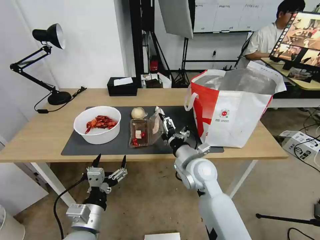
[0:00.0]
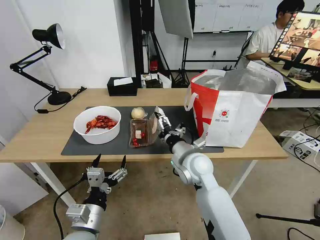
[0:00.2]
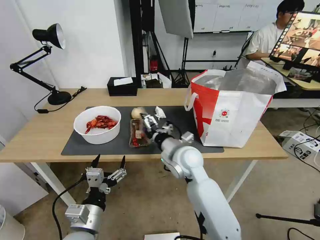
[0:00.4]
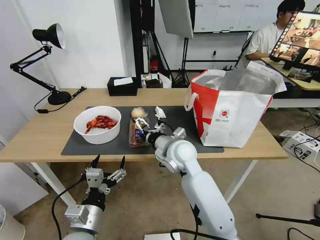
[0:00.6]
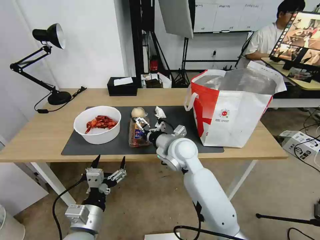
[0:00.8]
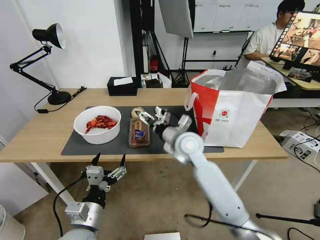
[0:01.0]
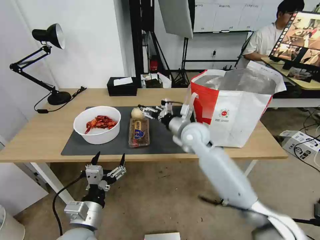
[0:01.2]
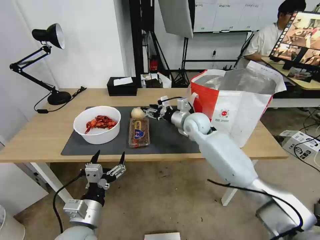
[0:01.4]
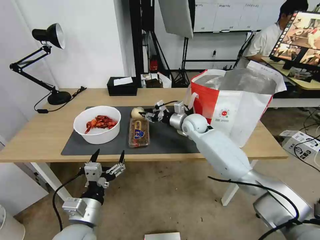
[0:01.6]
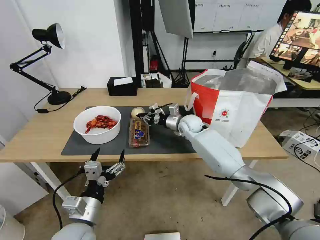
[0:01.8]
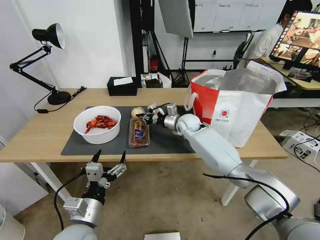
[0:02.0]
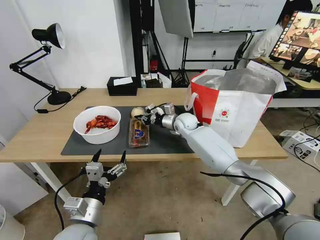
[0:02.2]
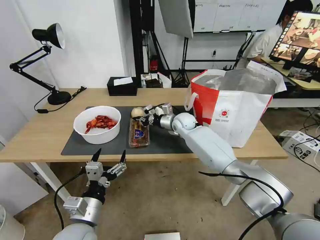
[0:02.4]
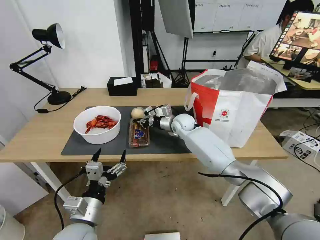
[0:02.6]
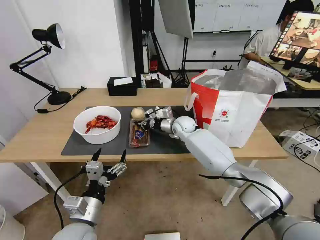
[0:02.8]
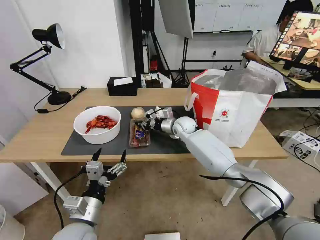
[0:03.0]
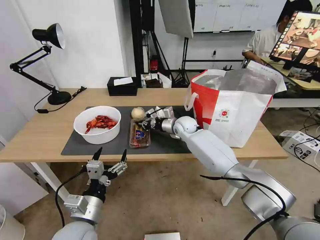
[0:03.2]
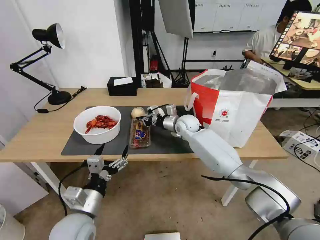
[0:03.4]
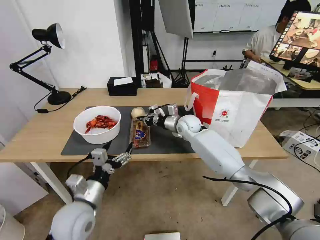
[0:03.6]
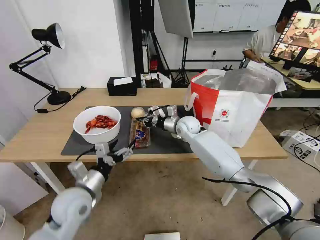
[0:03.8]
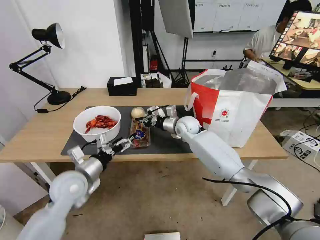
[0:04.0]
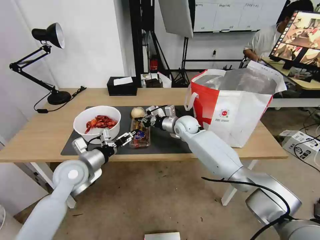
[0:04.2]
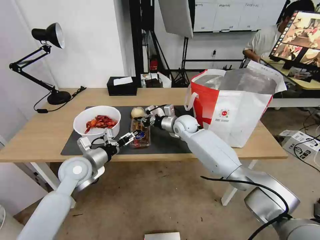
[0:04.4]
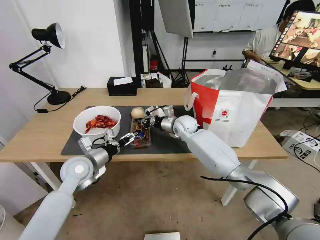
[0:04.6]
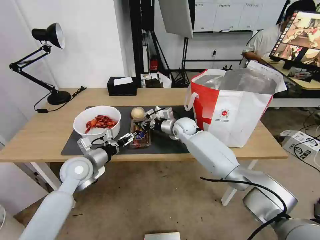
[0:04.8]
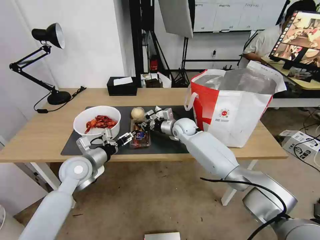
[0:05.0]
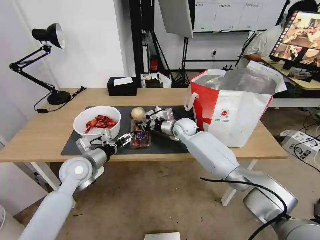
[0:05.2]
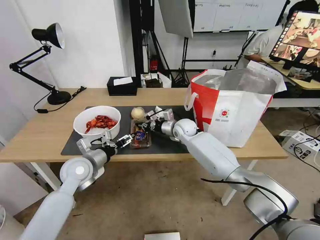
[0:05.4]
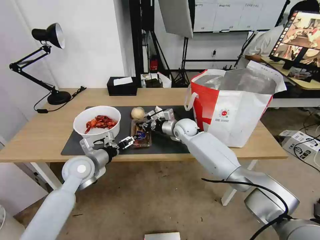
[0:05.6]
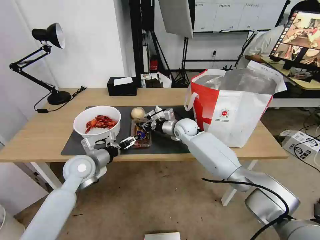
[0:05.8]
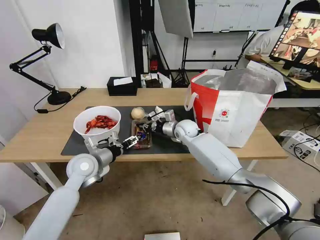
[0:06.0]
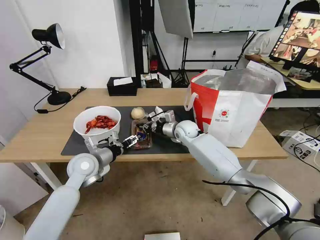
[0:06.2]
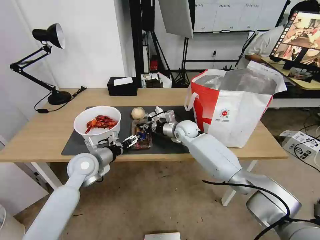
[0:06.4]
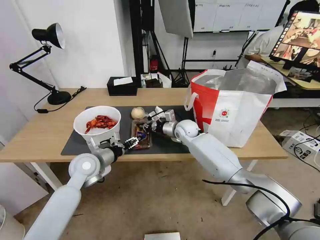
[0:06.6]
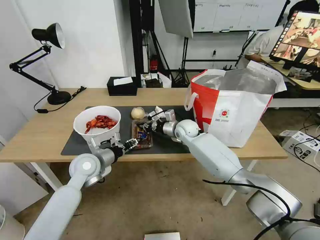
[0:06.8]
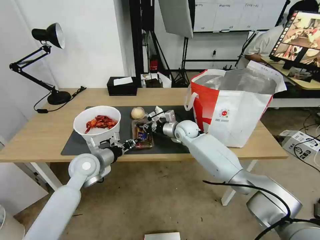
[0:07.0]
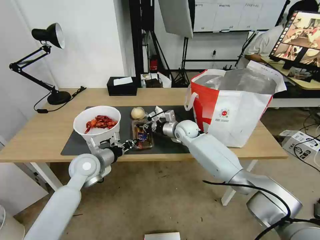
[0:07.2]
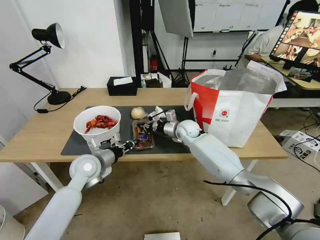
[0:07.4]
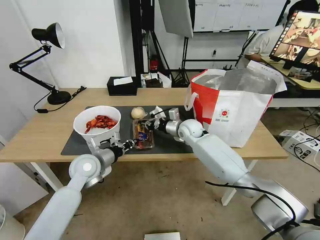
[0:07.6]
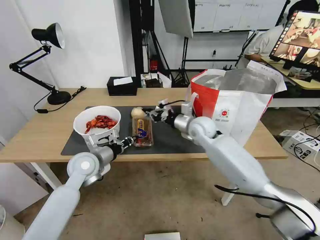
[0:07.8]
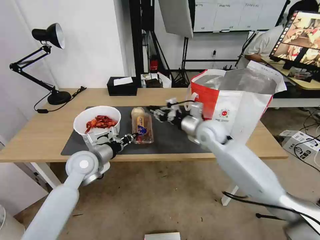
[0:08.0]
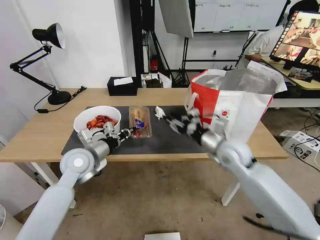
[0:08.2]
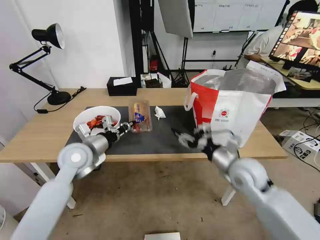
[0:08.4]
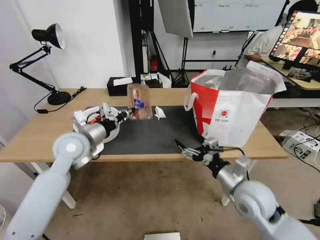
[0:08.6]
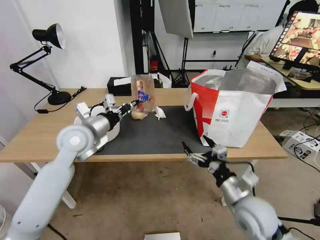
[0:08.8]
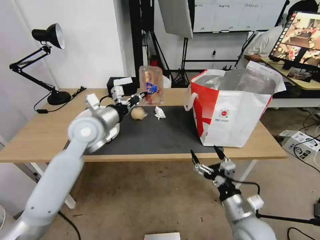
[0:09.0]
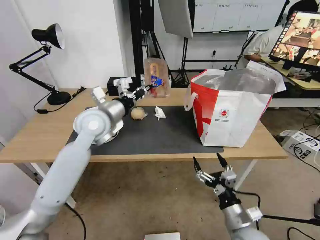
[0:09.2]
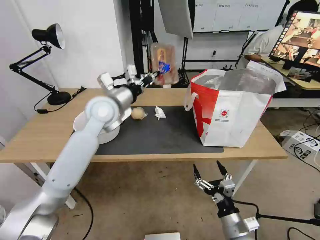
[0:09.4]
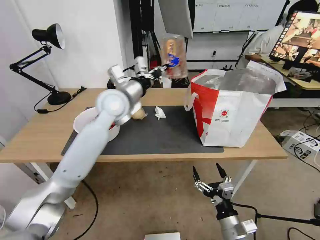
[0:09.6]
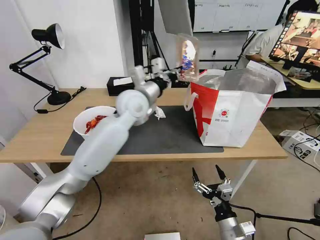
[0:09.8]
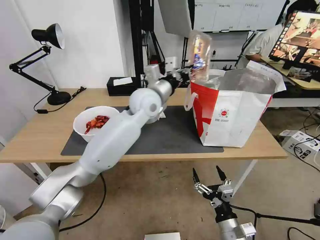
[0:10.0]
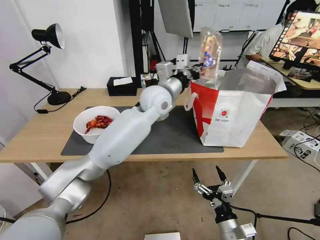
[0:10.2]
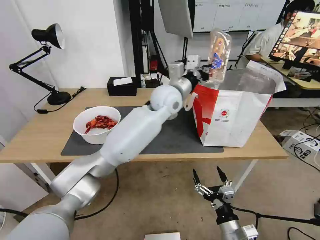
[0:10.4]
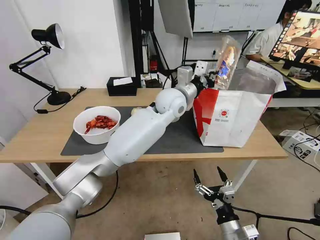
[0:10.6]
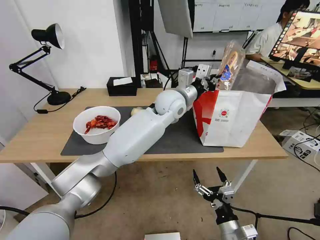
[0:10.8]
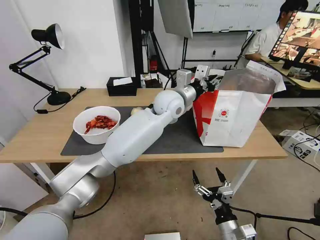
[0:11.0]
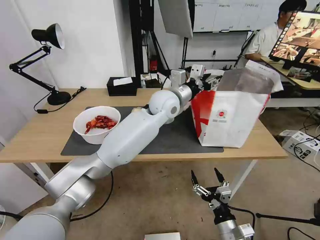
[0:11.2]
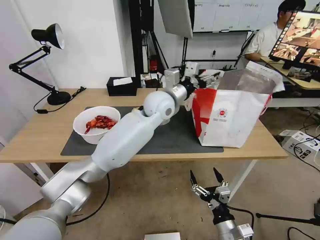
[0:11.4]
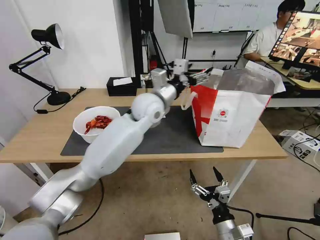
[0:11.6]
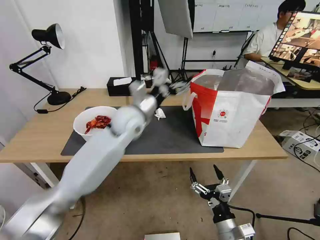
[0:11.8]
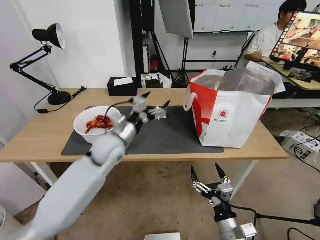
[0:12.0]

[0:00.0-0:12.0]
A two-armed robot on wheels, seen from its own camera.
Task of the whole recording: Pick up the trash from the table and place it into the takeout bag.
0:00.0 to 0:01.6: The right gripper heads forward, covering some 20 cm, and closes up.
0:01.6 to 0:03.0: The right gripper moves roughly 5 cm, and closes.
0:03.0 to 0:04.4: The left gripper moves forward, roughly 20 cm.
0:04.4 to 0:06.0: There are only small adjustments of the grippers.
0:06.0 to 0:07.6: The left gripper closes its fingers.
0:07.6 to 0:09.0: The right gripper travels backward by about 35 cm, and opens up. Meanwhile the left gripper goes approximately 15 cm upward.
0:09.0 to 0:10.4: The left gripper heads to the right and forward, covering some 25 cm. The right gripper shifts approximately 10 cm downward and backward.
0:10.4 to 0:12.0: The left gripper heads to the left, downward and backward, covering approximately 25 cm, and opens its fingers.

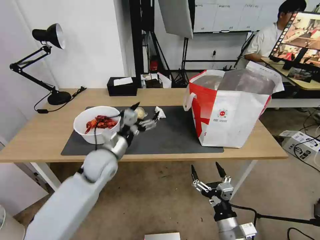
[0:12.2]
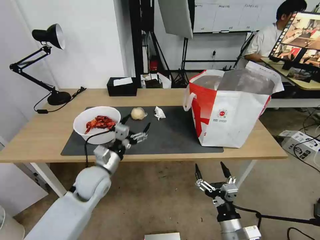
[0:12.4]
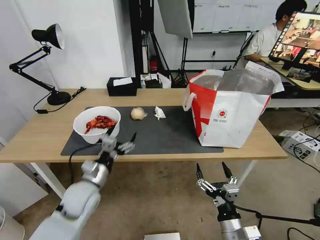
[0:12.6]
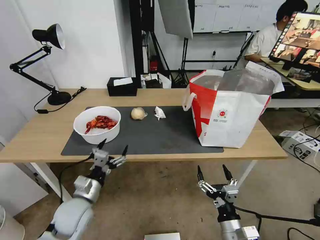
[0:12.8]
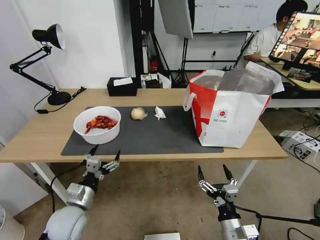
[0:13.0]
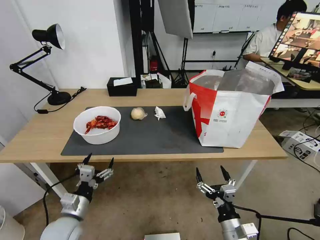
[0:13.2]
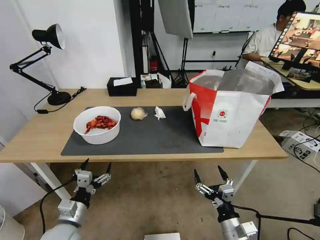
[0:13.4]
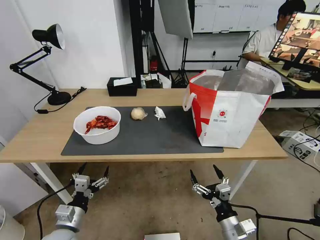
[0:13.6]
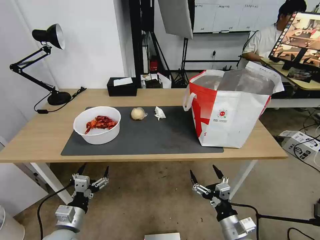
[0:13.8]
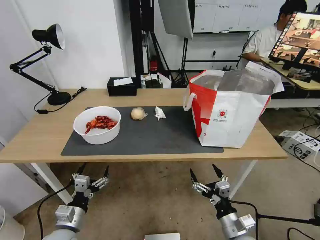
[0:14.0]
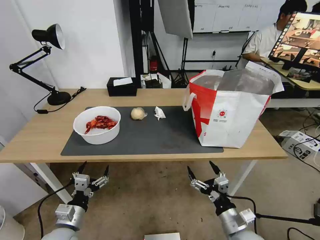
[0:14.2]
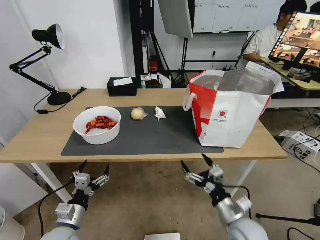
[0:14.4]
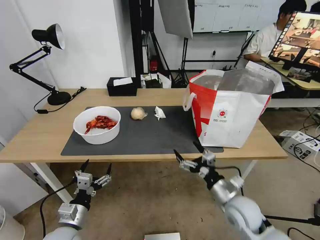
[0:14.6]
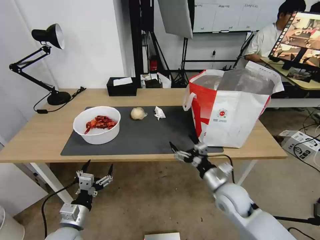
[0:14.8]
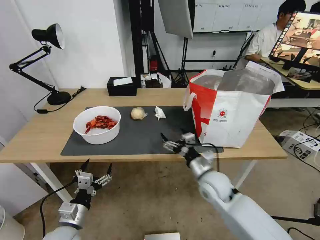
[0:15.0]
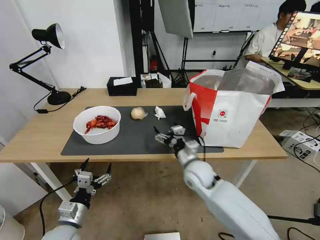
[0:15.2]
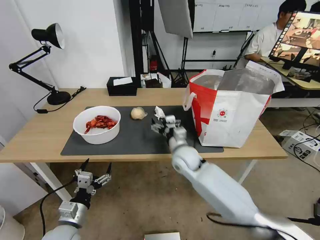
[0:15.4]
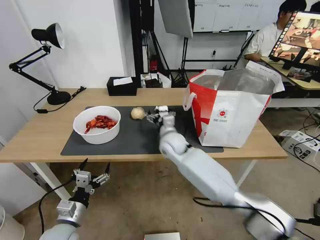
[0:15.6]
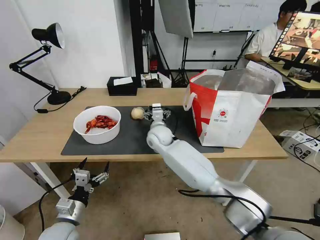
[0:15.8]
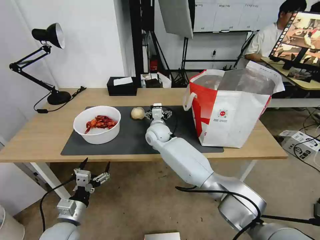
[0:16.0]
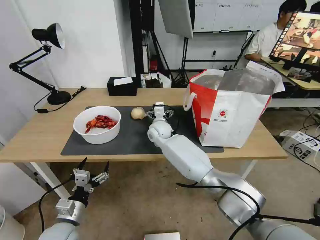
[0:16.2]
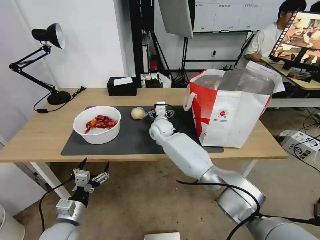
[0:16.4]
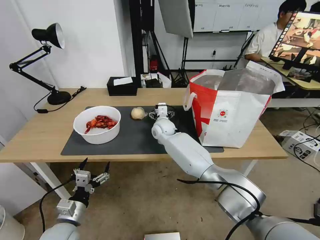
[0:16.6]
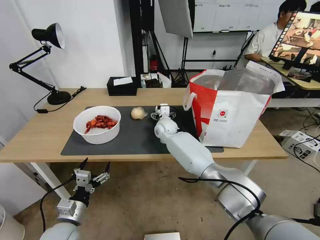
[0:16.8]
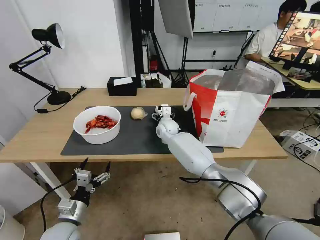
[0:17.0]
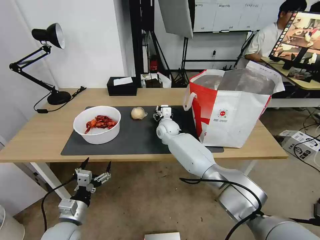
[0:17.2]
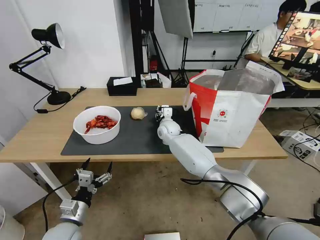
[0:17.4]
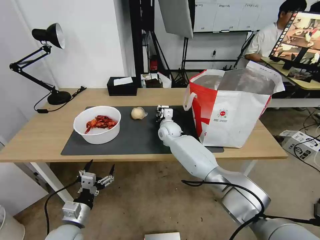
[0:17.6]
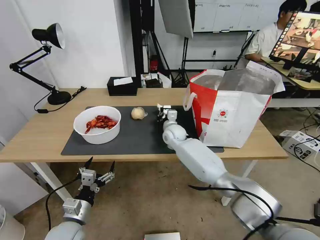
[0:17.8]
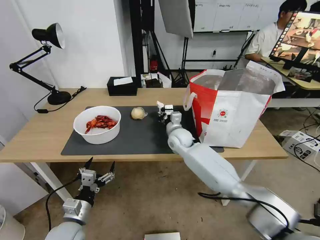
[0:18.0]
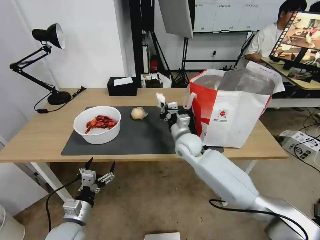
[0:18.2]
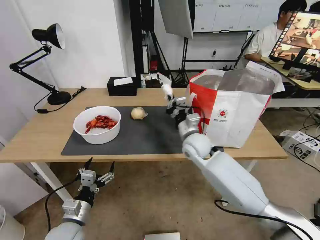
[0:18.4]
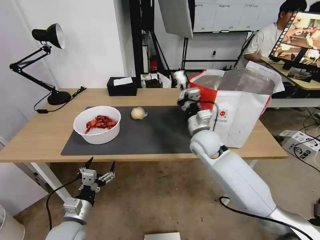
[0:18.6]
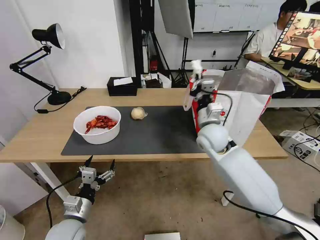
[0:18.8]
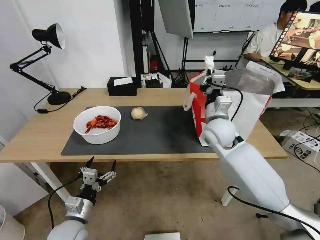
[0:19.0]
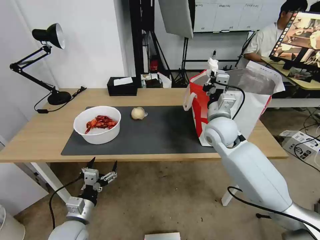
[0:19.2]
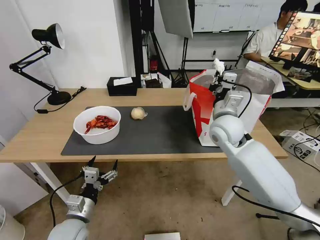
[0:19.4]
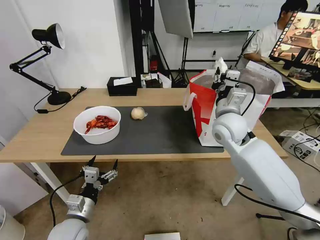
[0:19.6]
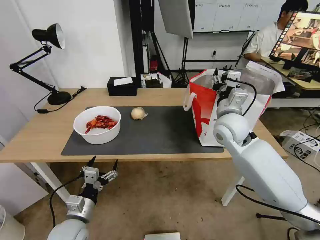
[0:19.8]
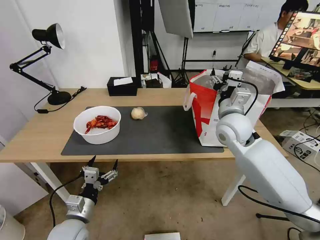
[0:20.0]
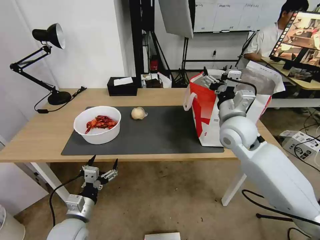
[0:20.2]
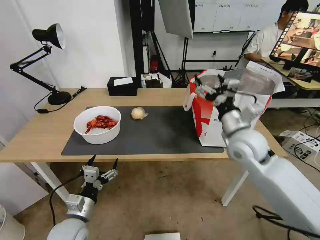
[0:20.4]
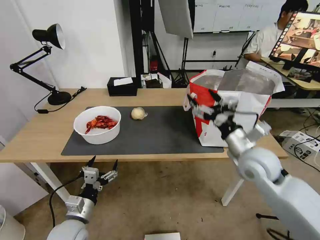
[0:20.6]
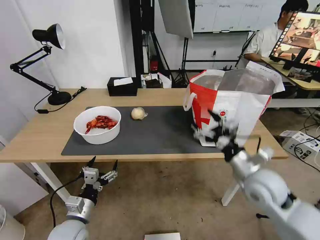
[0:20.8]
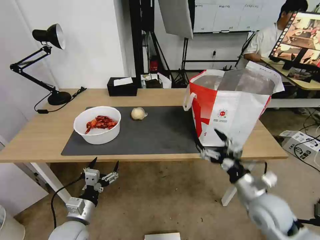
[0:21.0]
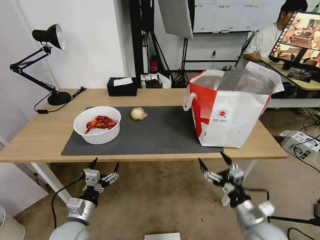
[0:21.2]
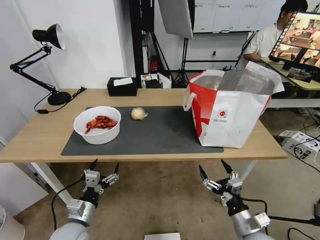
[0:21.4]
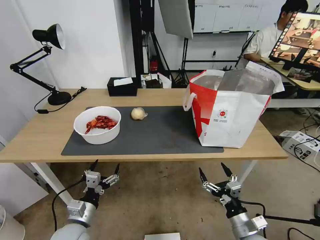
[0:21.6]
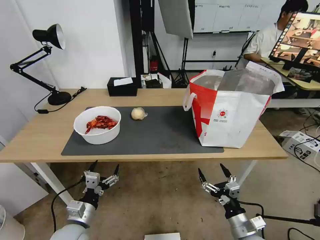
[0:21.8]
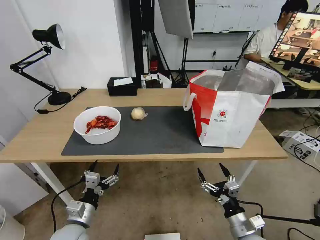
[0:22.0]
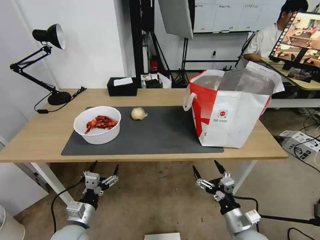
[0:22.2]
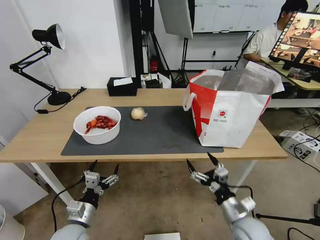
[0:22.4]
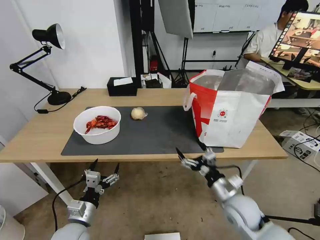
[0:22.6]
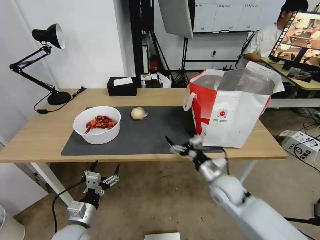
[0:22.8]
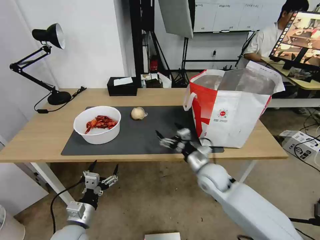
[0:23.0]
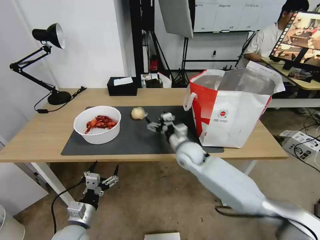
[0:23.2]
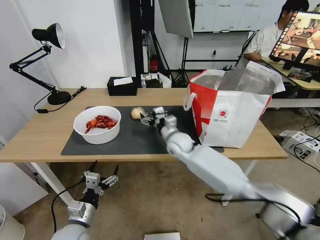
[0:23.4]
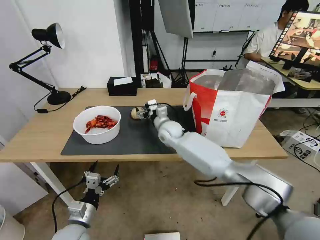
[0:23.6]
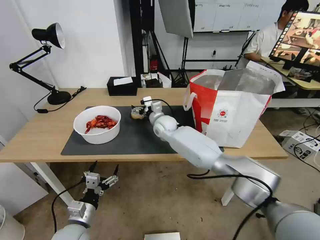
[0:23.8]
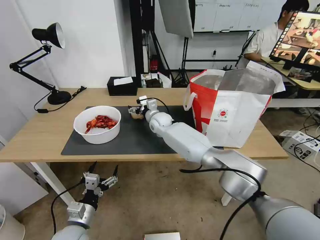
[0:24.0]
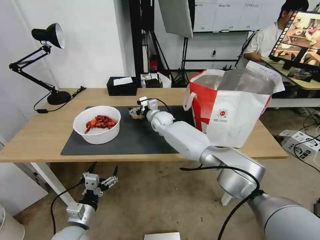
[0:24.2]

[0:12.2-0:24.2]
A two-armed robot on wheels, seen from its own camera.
Task of the whole recording: Pick up the trash from the table and place it into the takeout bag.
0:12.2 to 0:13.8: The left gripper is displaced backward, downward and to the left by about 25 cm.
0:13.8 to 0:15.2: The right gripper goes about 25 cm forward and to the left.
0:15.2 to 0:16.6: The right gripper heads forward and to the left, covering about 20 cm.
0:16.6 to 0:18.2: The right gripper is displaced backward and to the right by about 15 cm, and closes its fingers.
0:18.2 to 0:19.8: The right gripper heads upward and to the right, covering some 15 cm, and opens its fingers.
0:19.8 to 0:21.2: The right gripper travels backward and downward by about 30 cm, and opens its fingers.
0:21.2 to 0:22.6: The right gripper shifts roughly 5 cm forward.
0:22.6 to 0:24.2: The right gripper moves forward and to the left, roughly 40 cm.
